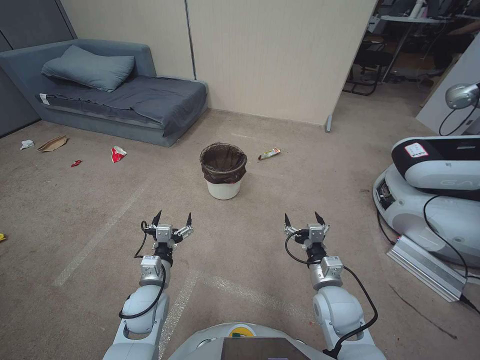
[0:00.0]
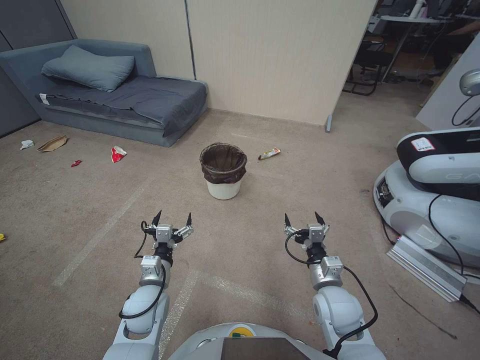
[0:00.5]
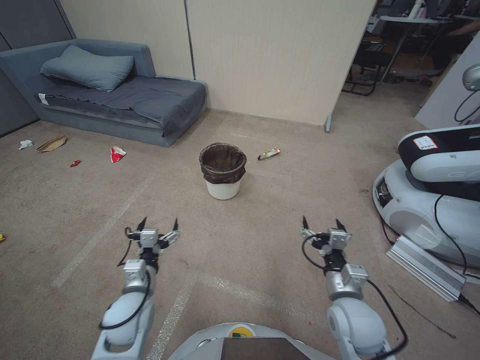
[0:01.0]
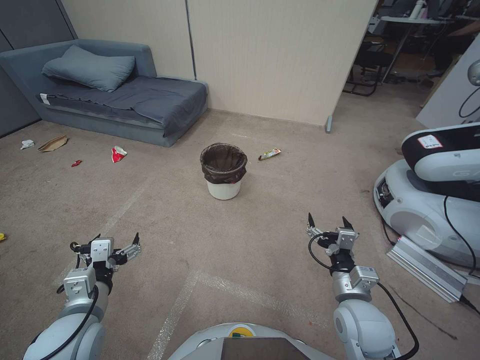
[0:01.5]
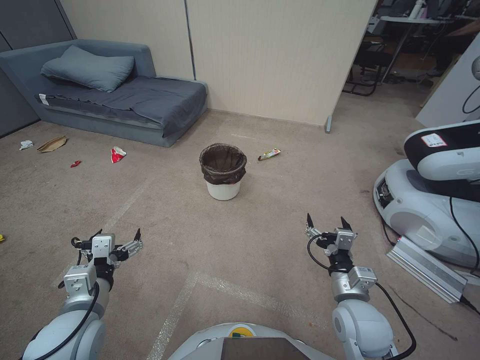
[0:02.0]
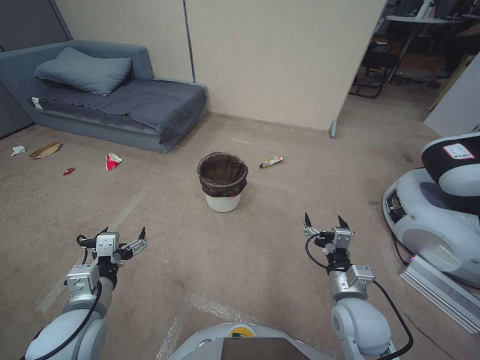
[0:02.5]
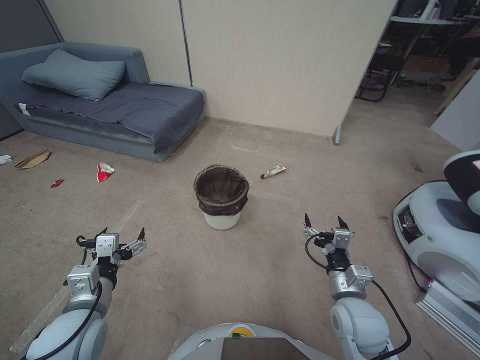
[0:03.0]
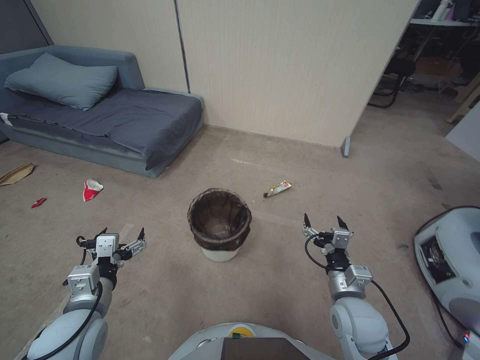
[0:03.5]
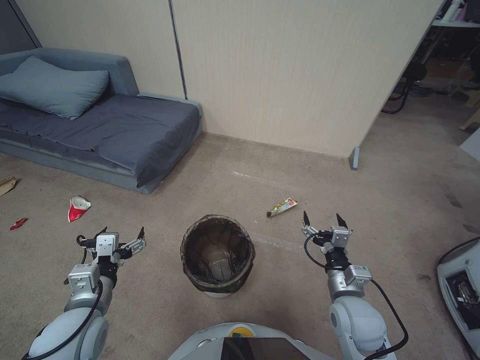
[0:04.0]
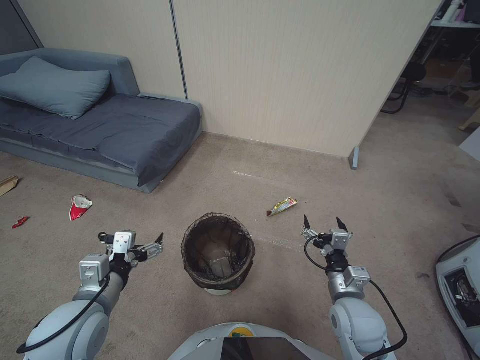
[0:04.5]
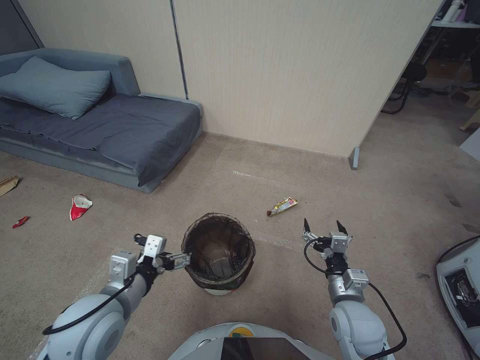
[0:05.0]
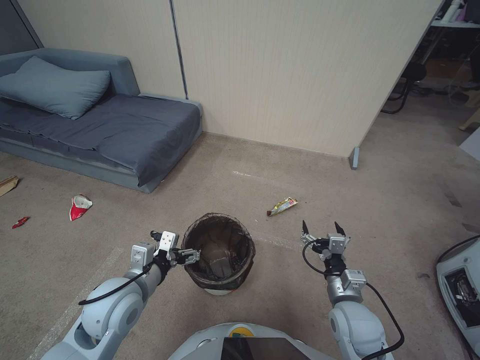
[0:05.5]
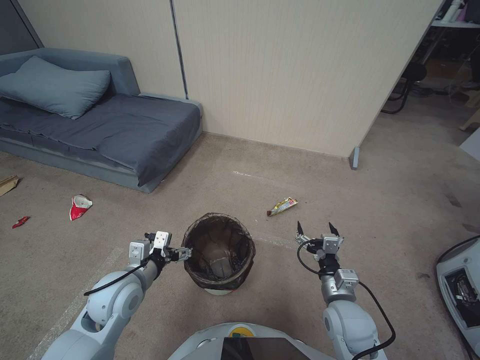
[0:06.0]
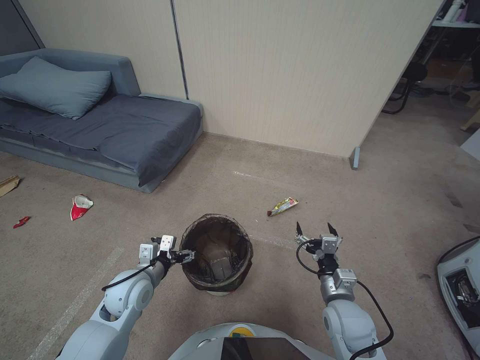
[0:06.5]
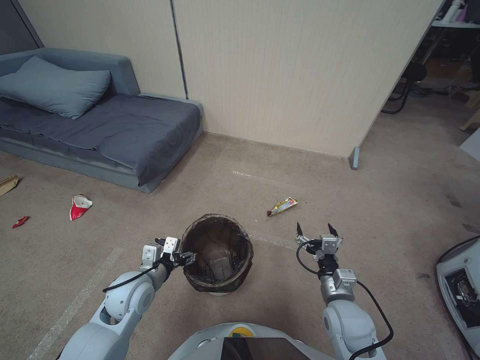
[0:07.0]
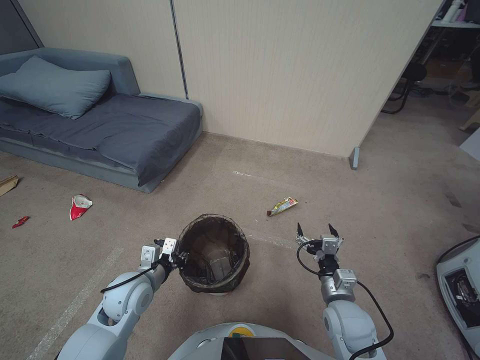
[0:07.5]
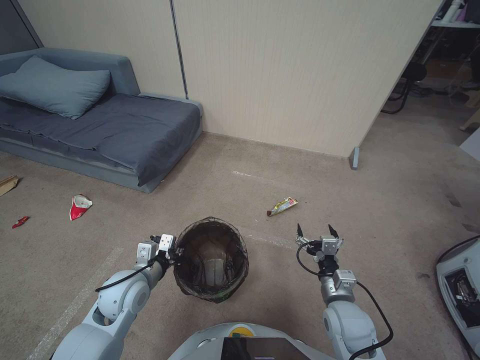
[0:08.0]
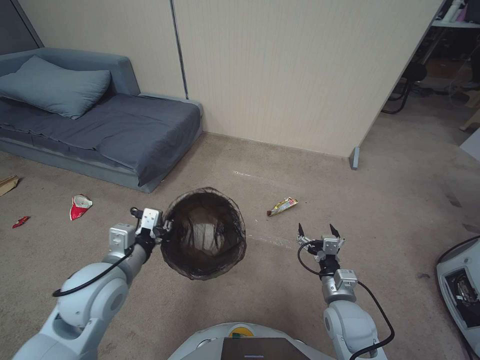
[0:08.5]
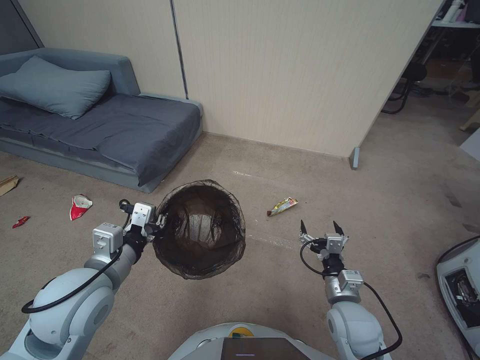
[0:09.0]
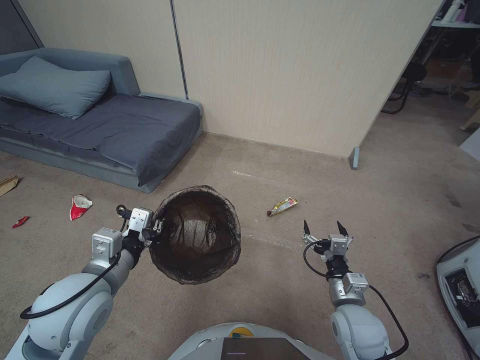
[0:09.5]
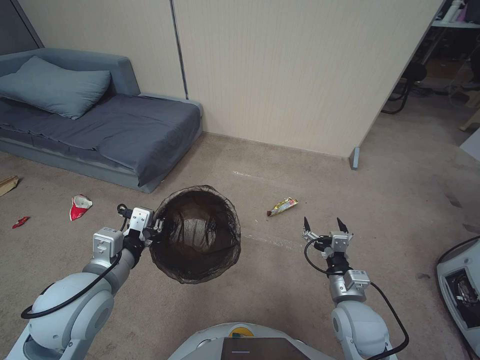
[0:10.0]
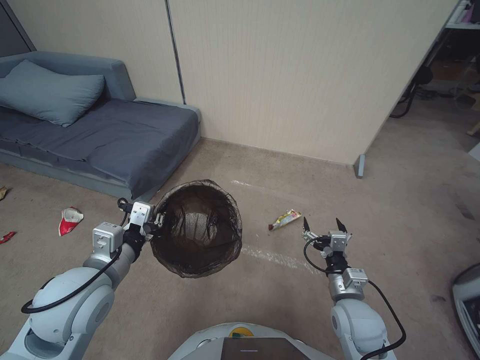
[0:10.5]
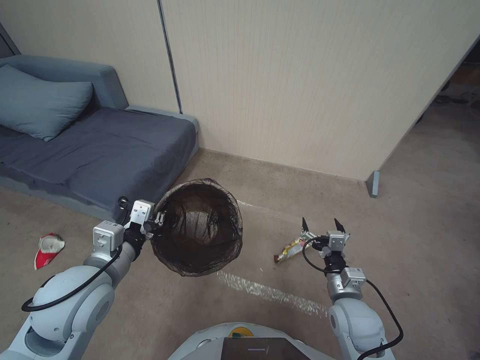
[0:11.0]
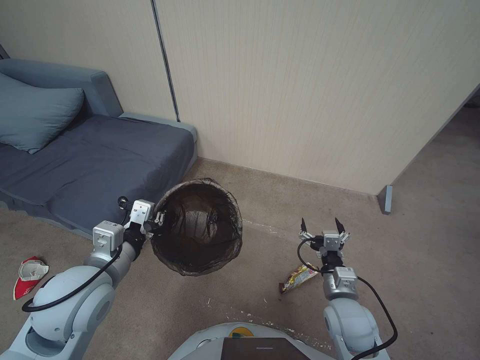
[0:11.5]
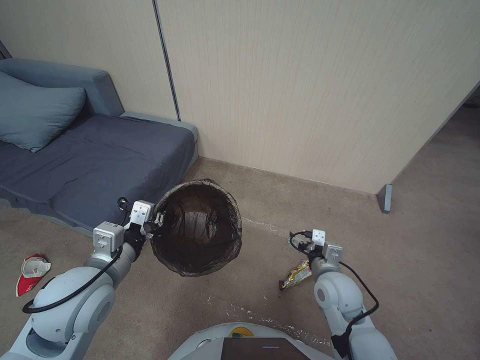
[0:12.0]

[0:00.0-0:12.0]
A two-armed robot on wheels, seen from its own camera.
Task of the whole recording: Pick up the trash bin, then pick up the garbage from the floor and place it into the trash bin.
0:04.0 to 0:06.0: The left gripper is displaced forward by about 5 cm.
0:06.0 to 0:08.0: The left gripper closes.
0:08.0 to 0:10.0: The left gripper travels upward by roughly 15 cm.
0:10.0 to 0:12.0: The right gripper goes roughly 5 cm forward.

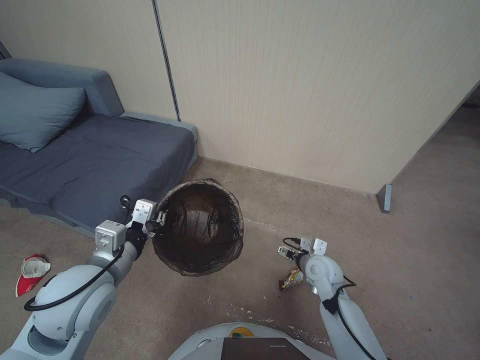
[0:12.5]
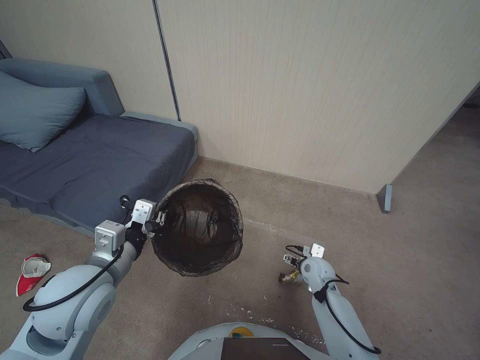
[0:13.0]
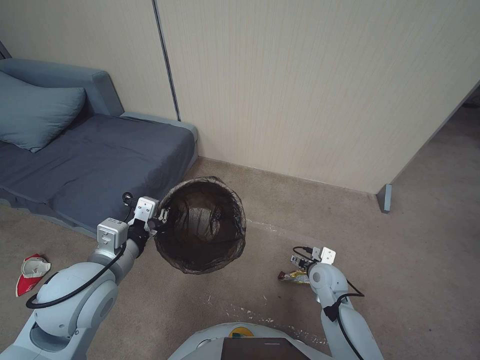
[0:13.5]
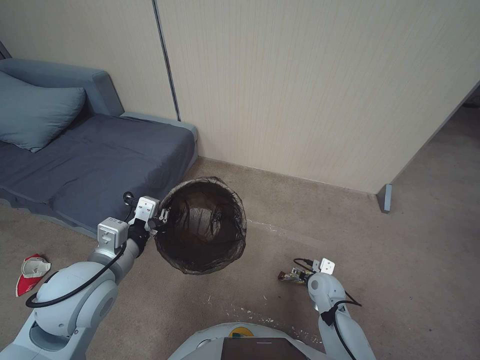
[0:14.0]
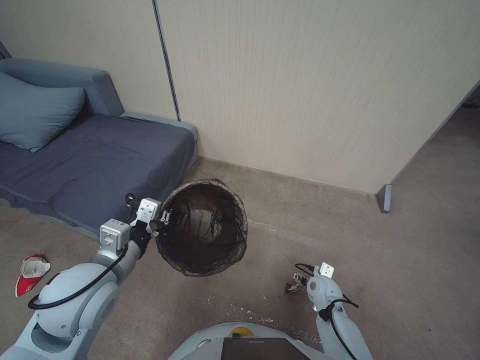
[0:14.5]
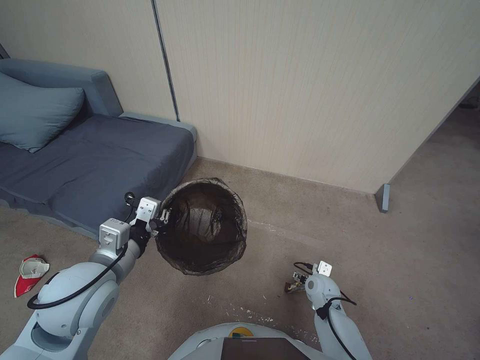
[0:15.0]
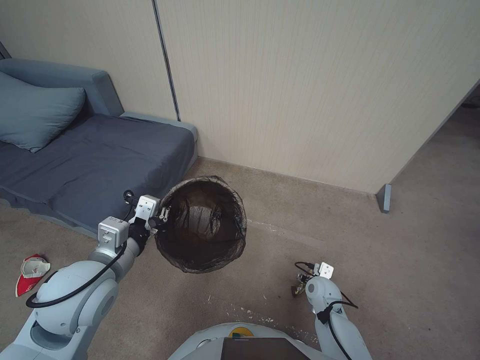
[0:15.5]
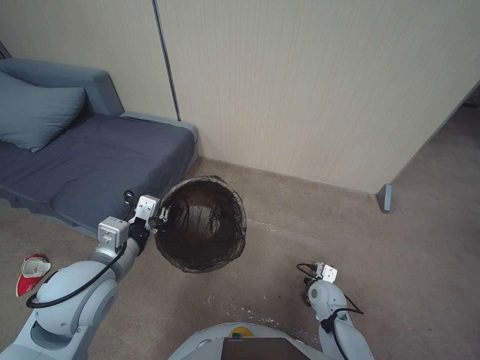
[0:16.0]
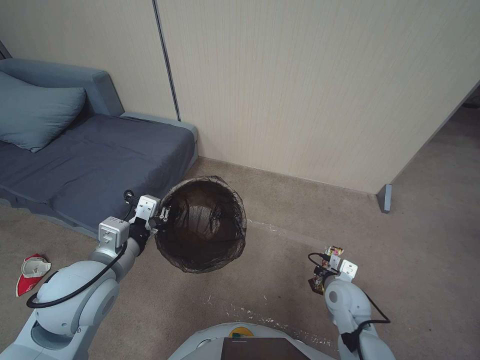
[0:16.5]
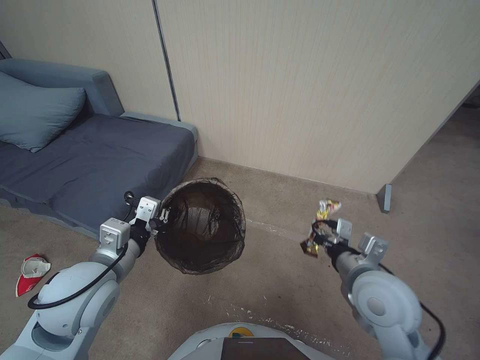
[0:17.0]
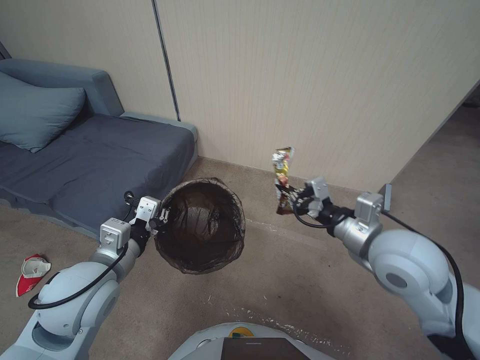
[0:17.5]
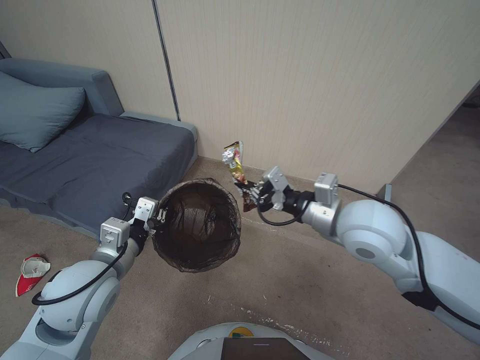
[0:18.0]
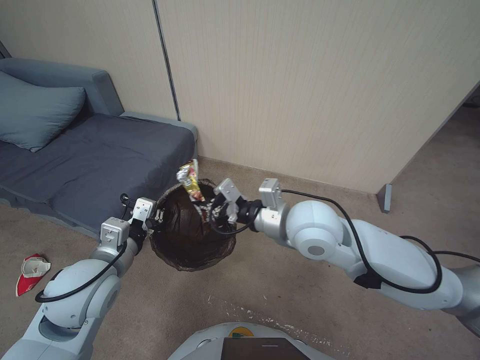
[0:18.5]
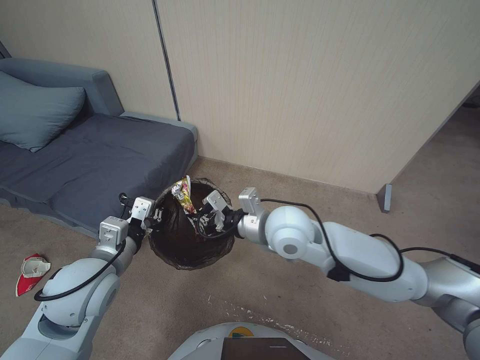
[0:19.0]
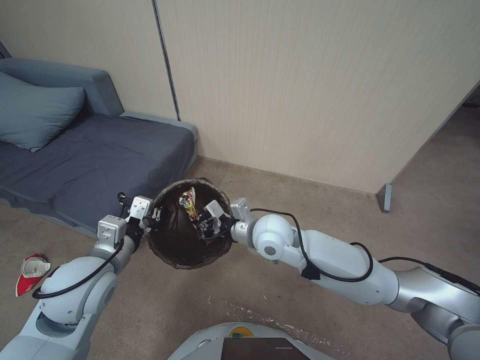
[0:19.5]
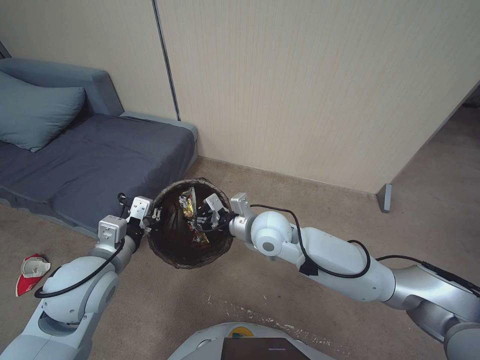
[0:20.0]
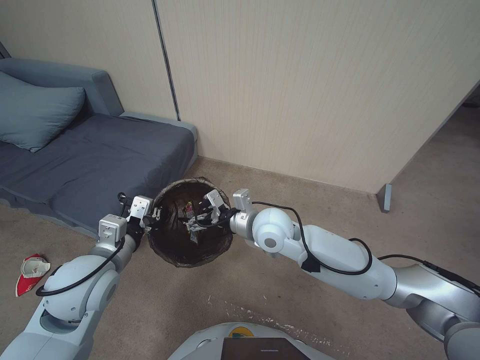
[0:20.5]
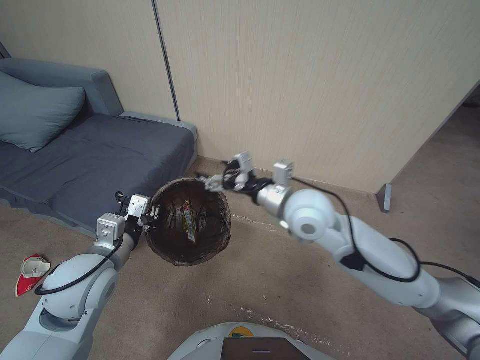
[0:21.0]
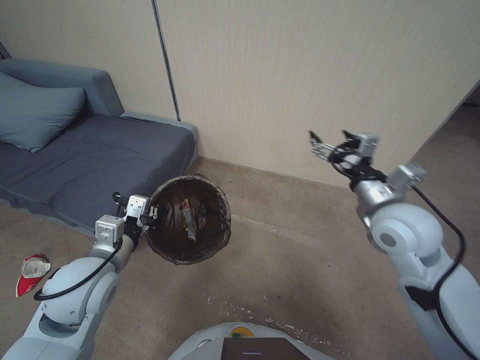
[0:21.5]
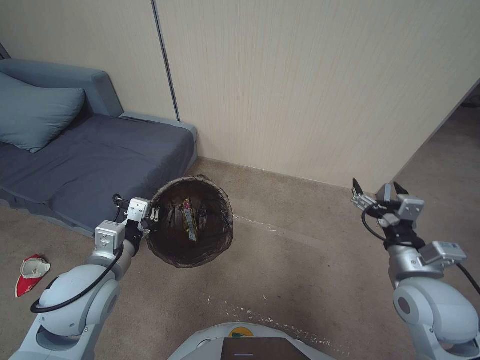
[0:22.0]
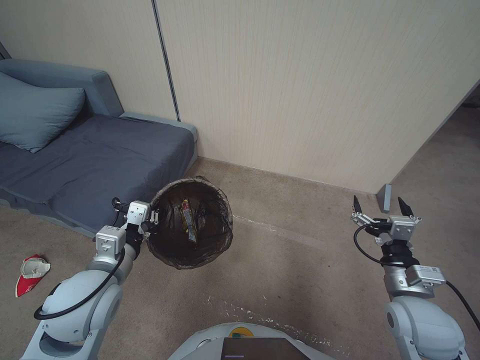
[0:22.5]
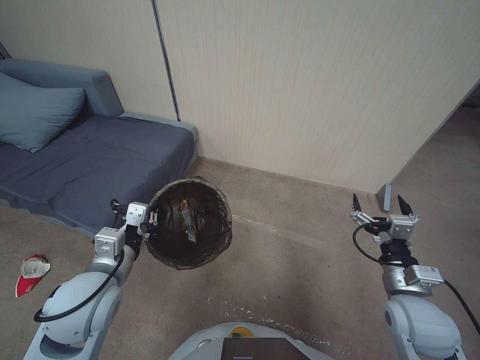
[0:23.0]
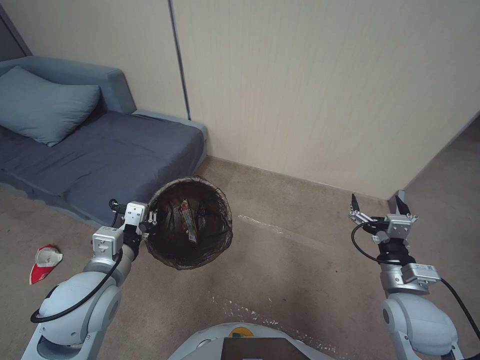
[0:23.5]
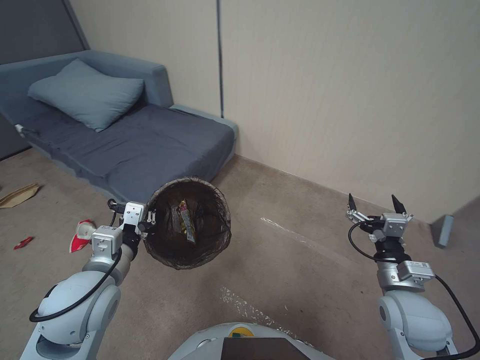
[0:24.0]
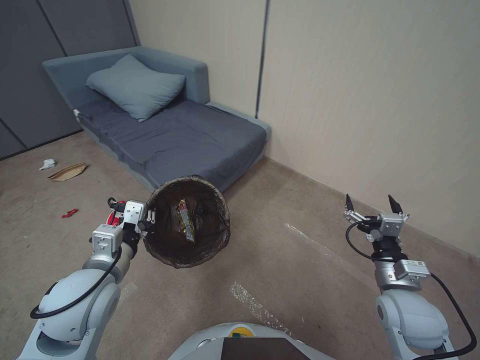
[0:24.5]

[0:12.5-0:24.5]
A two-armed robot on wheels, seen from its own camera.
Task of the whole recording: Pick up the trash bin, then pick up the garbage from the floor and place it into the trash bin.
0:12.5 to 0:14.5: The right gripper moves up and down over about 10 cm, changing direction 2 times.
0:14.5 to 0:16.5: The right gripper is displaced upward by roughly 5 cm, and closes its fingers.
0:16.5 to 0:18.5: The right gripper is displaced upward and to the left by some 30 cm.
0:18.5 to 0:20.5: The right gripper travels downward and to the left by roughly 10 cm, and opens its fingers.
0:20.5 to 0:22.5: The right gripper goes roughly 30 cm to the right and backward.

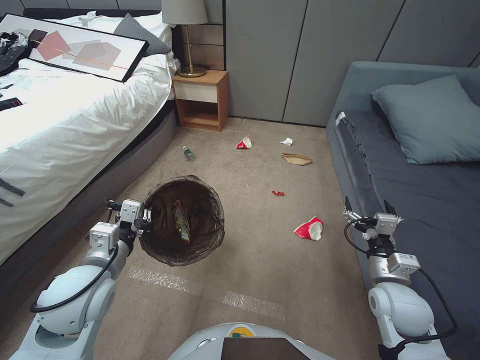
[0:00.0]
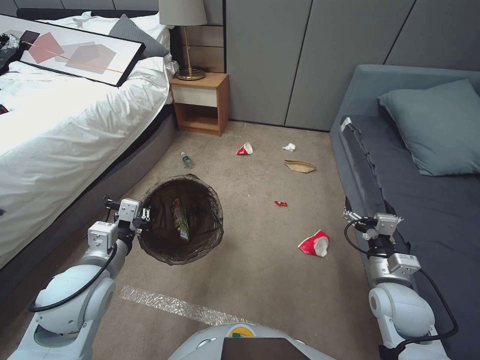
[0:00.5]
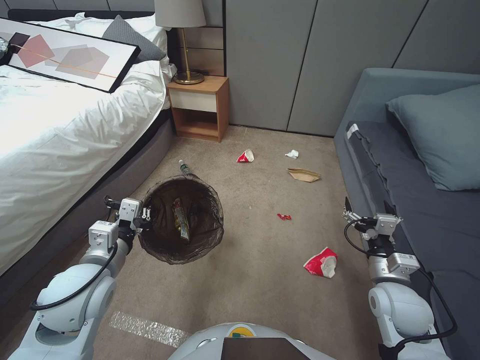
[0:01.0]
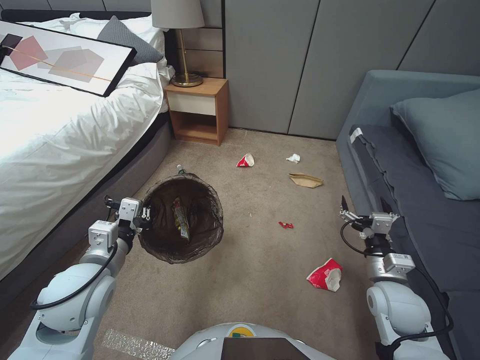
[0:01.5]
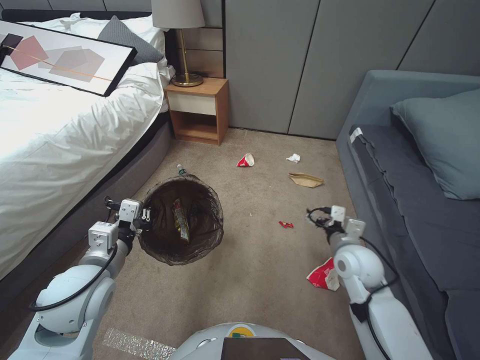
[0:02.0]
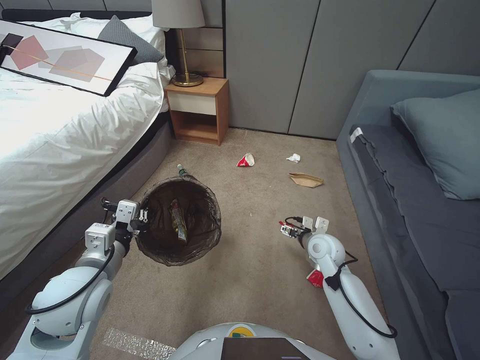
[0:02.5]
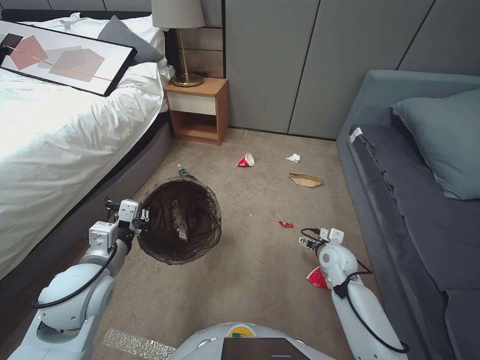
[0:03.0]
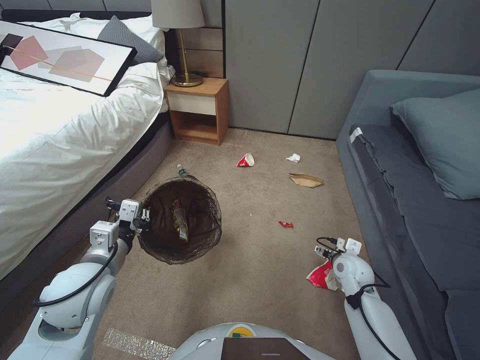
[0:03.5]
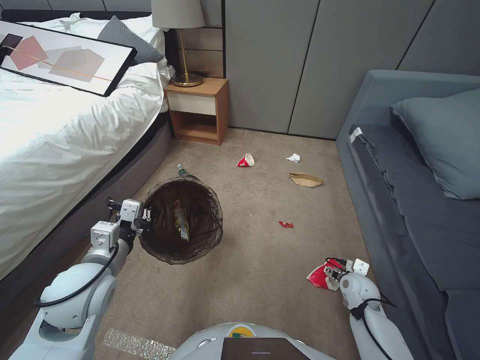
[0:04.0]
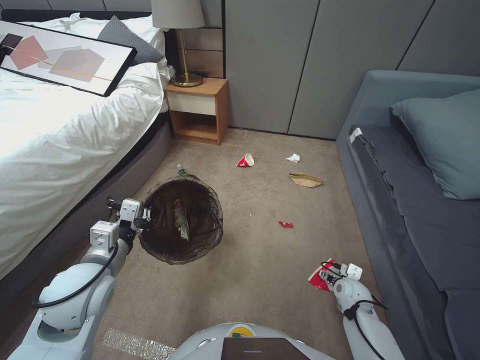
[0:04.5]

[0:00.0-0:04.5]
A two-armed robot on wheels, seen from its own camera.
Task of the whole recording: Pick up the trash bin, then pick up the garbage from the floor and place it into the trash bin.
0:00.0 to 0:02.0: The right gripper is displaced forward by roughly 5 cm.
0:02.0 to 0:04.5: The right gripper shifts some 20 cm downward.
